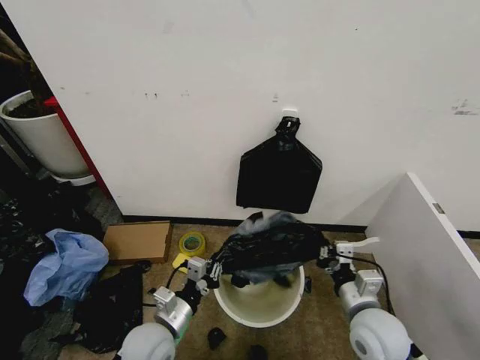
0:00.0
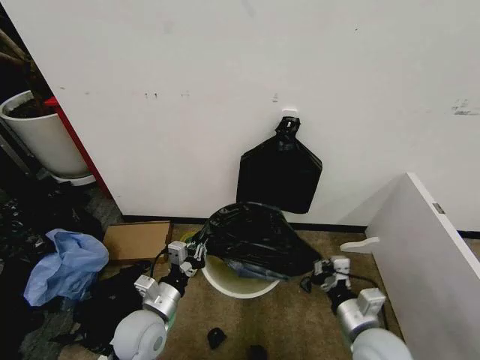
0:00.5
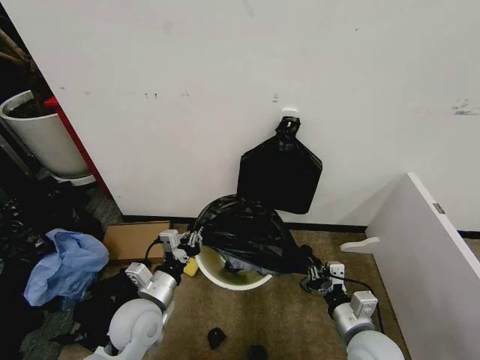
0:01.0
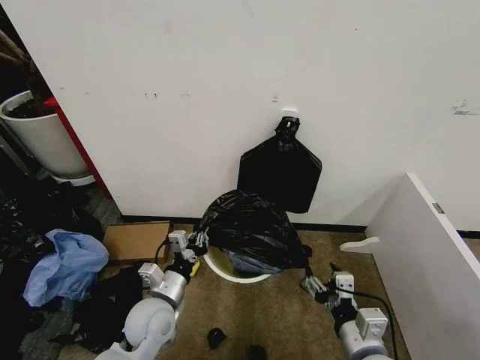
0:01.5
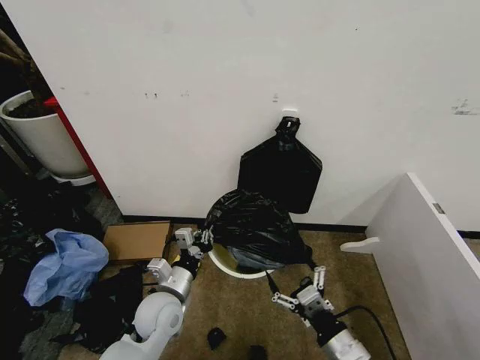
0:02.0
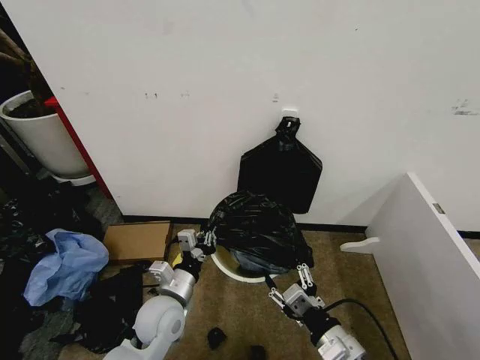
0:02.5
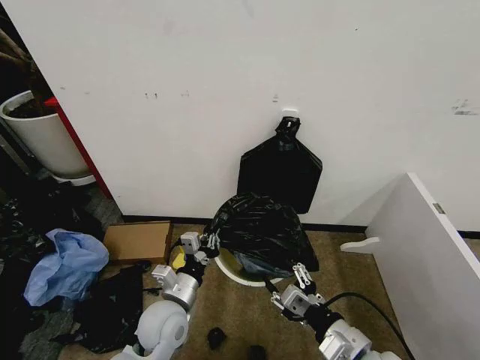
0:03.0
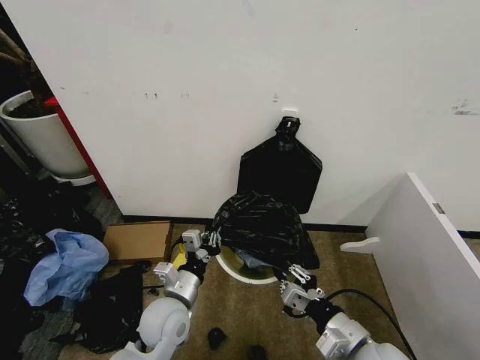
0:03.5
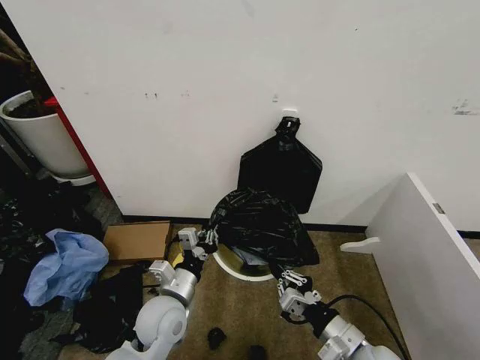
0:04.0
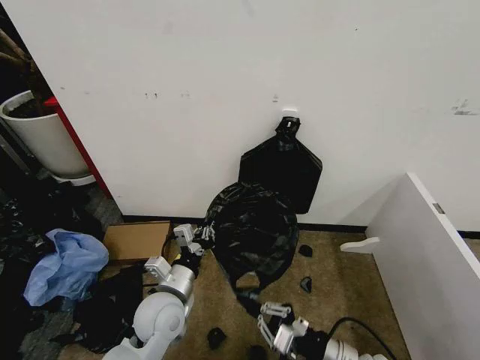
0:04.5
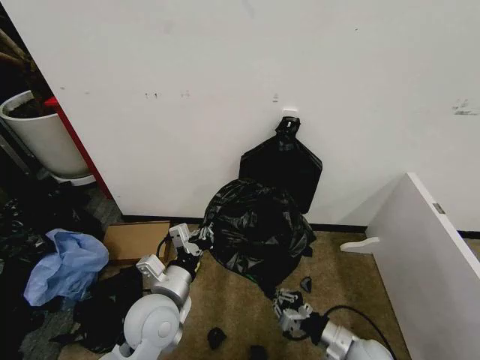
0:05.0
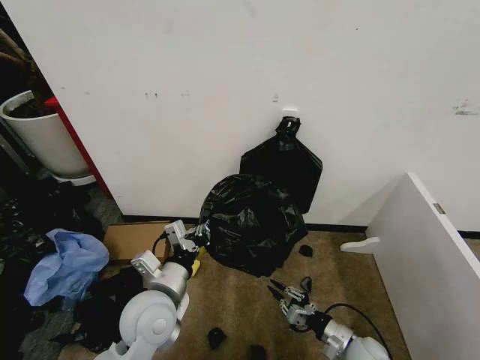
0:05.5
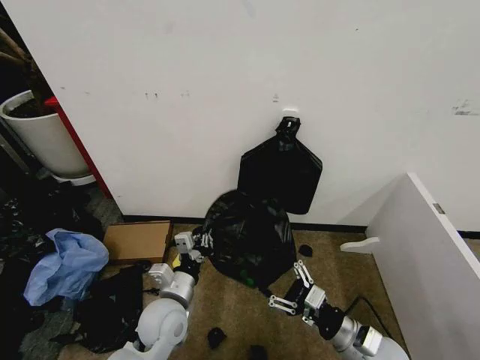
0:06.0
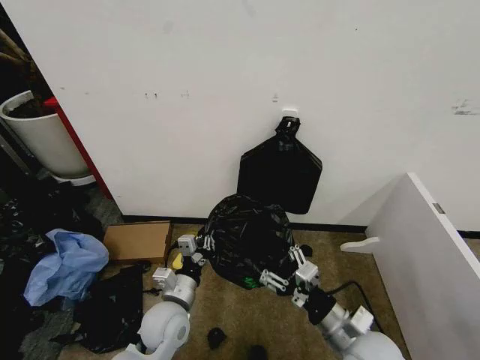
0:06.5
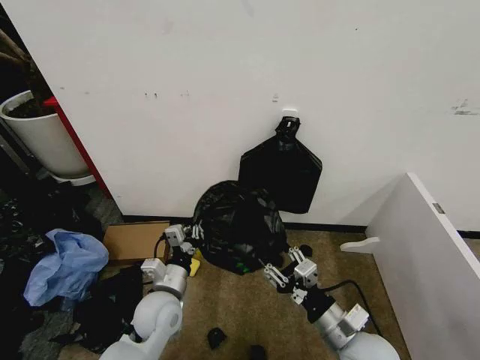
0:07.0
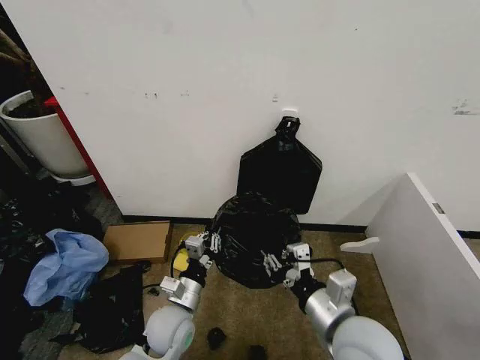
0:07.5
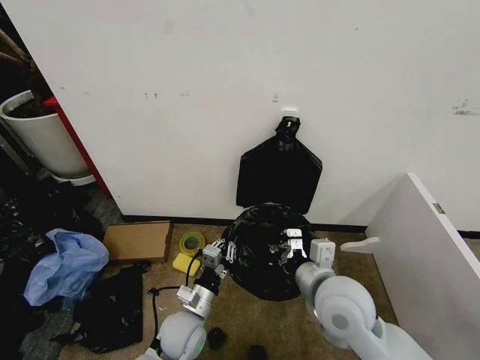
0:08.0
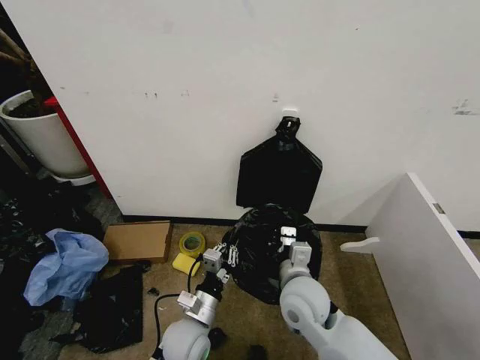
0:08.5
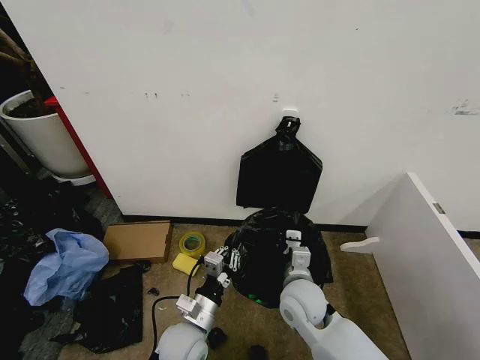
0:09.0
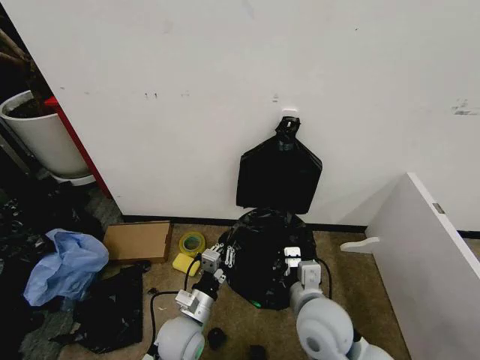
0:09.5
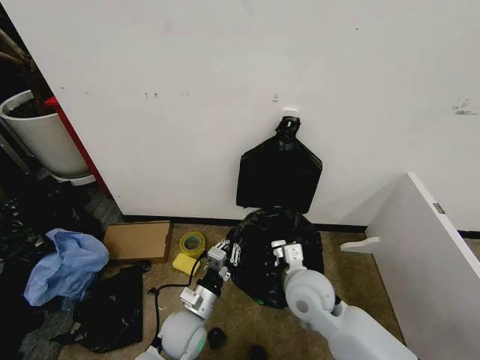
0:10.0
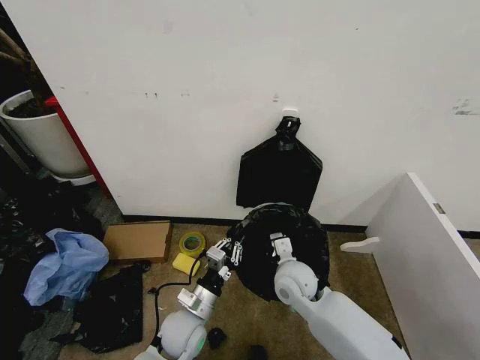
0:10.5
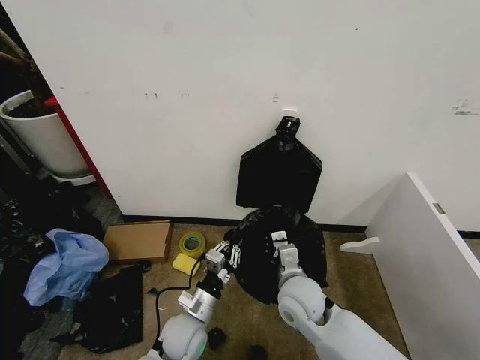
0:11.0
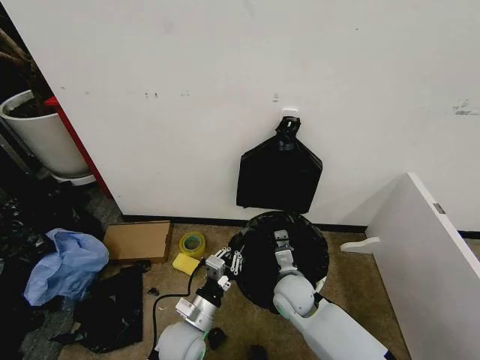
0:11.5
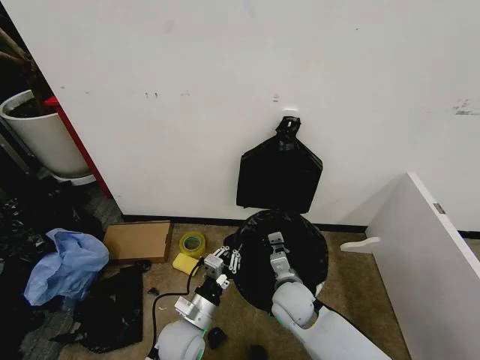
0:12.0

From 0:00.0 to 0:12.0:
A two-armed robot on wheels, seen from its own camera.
Task of the whole recording: Place the garbage bag over the trash bin.
From 0:00.0 to 0:02.0: The right gripper heads backward, covering roughly 10 cm, and opens its fingers, while the left gripper goes about 5 cm forward.
From 0:02.0 to 0:04.0: The right gripper closes its fingers.
From 0:04.0 to 0:06.0: The left gripper moves about 5 cm upward and comes back; the right gripper moves some 15 cm downward and comes back, and opens up.
From 0:06.0 to 0:08.0: The left gripper travels downward by approximately 5 cm, while the right gripper travels upward, to the left and forward by approximately 15 cm, and closes up.
From 0:08.0 to 0:10.0: The right gripper heads downward, covering roughly 5 cm.
From 0:10.0 to 0:12.0: The right gripper moves downward, approximately 10 cm.

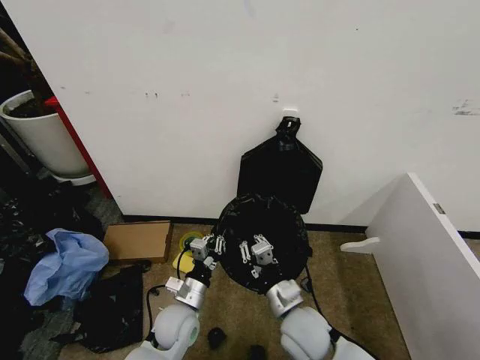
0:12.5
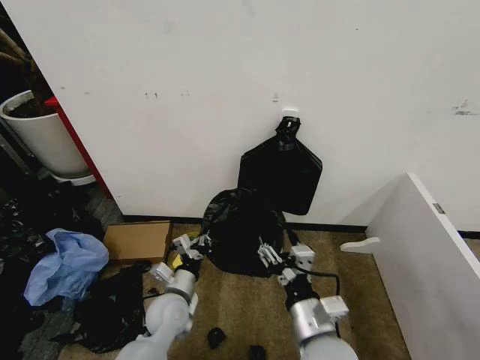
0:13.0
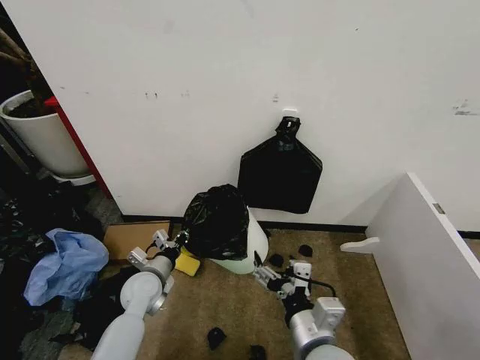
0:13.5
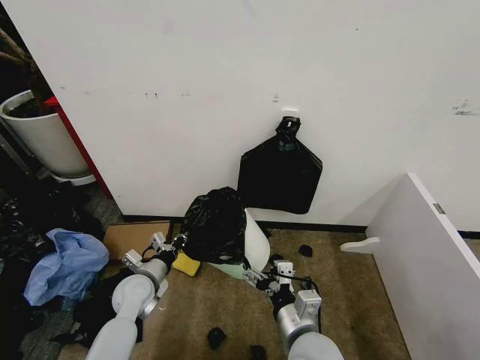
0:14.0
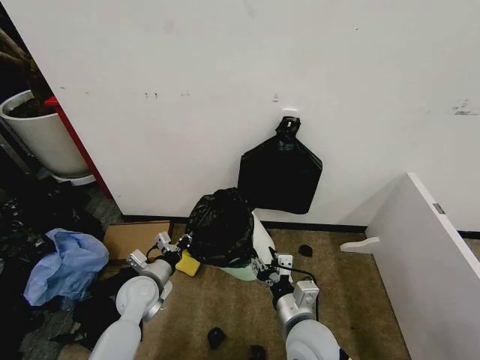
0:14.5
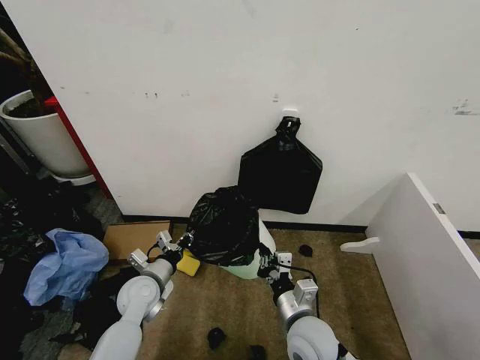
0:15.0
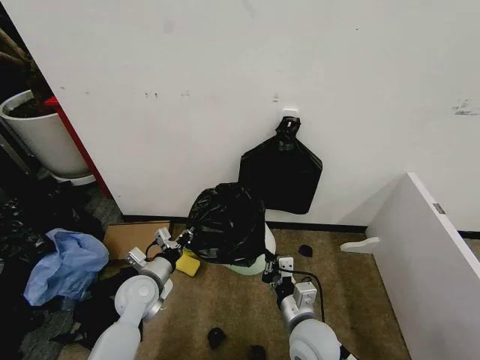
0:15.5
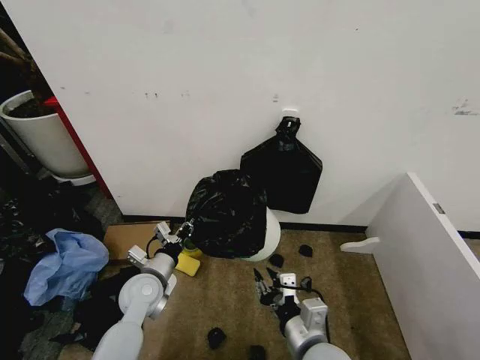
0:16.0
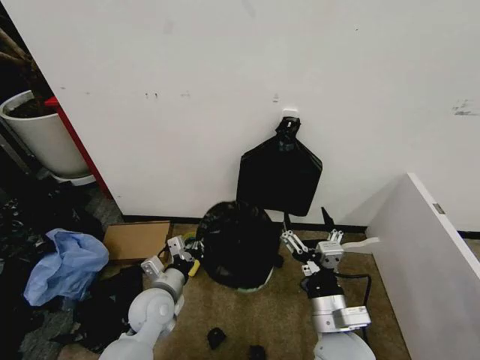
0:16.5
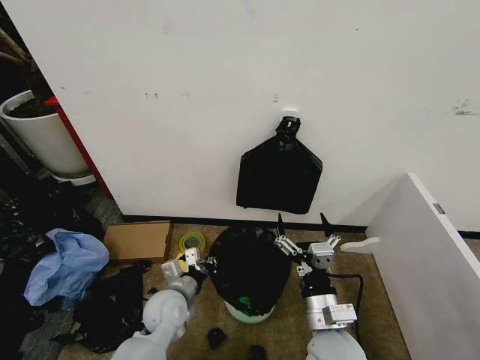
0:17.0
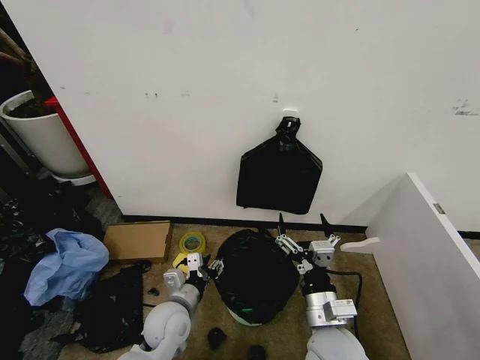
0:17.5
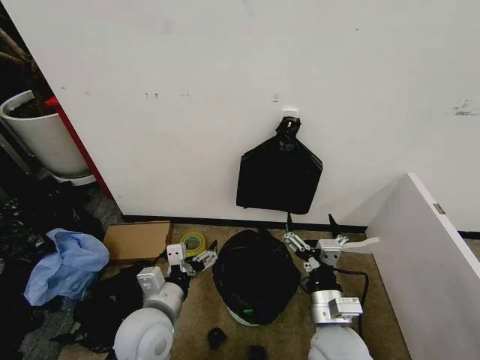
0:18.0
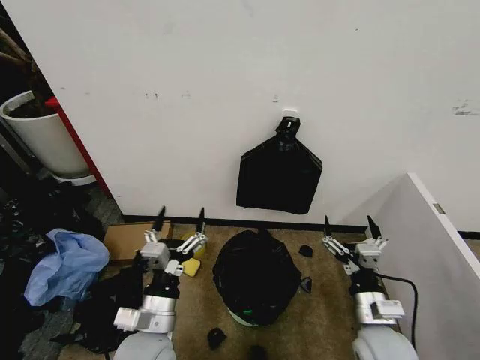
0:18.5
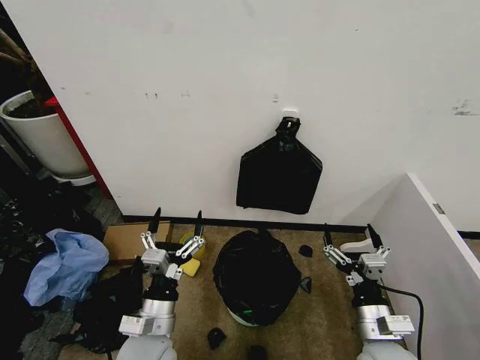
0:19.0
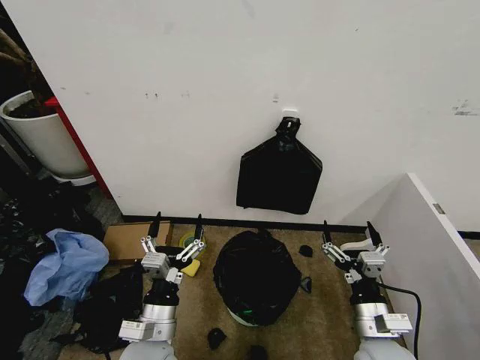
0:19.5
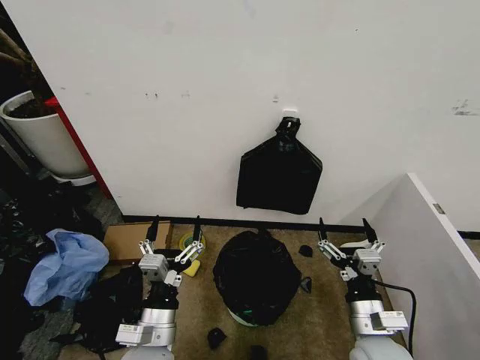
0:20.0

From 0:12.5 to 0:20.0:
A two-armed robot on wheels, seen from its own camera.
Task of the whole recording: Place the garbage bag over the trash bin.
From 0:12.5 to 0:14.5: The left gripper travels to the left and forward by approximately 10 cm. The right gripper opens up.
From 0:14.5 to 0:16.5: The right gripper changes place by approximately 5 cm, and closes and opens again; the left gripper ends up roughly 5 cm from where it was.
From 0:16.5 to 0:18.0: The left gripper goes some 10 cm upward and backward, and opens.
From 0:18.0 to 0:20.0: The right gripper heads to the right, covering some 10 cm; the left gripper changes place by about 5 cm.

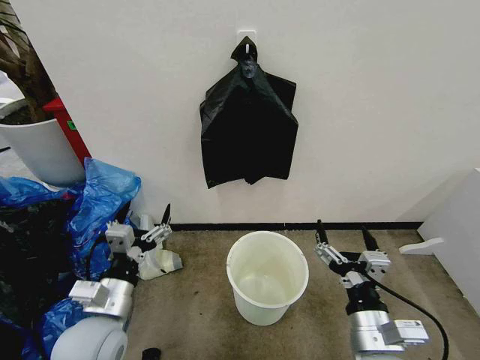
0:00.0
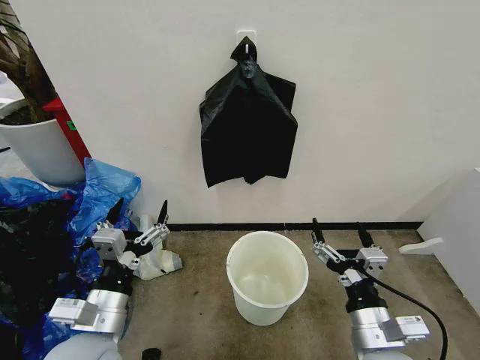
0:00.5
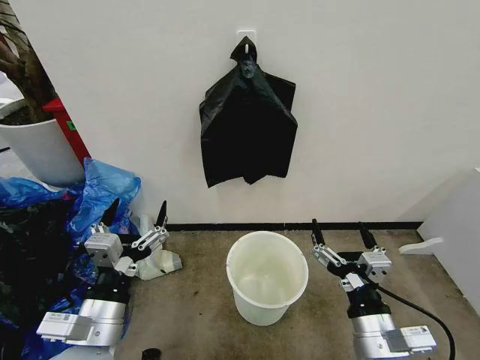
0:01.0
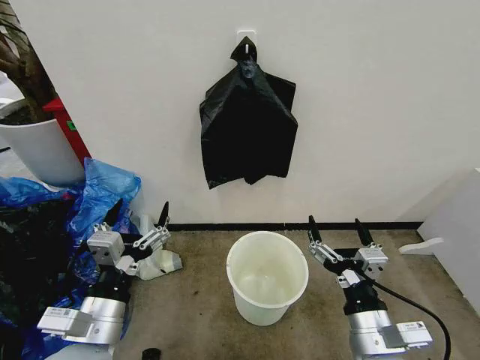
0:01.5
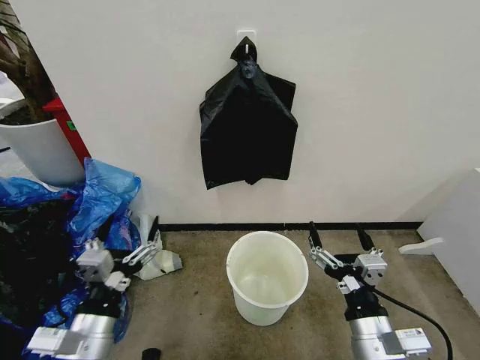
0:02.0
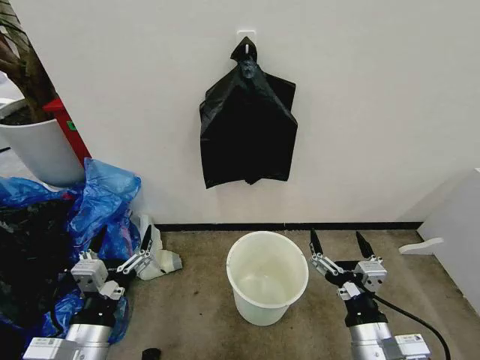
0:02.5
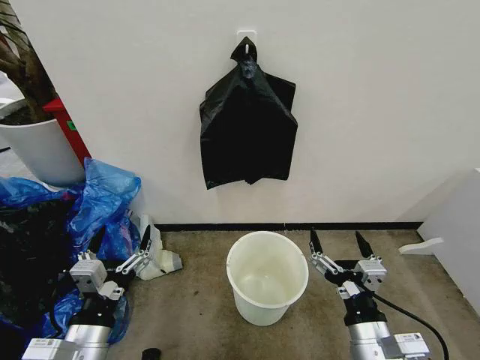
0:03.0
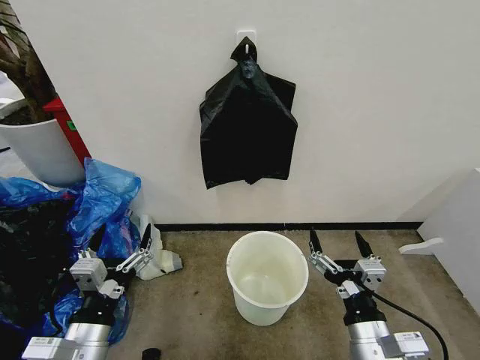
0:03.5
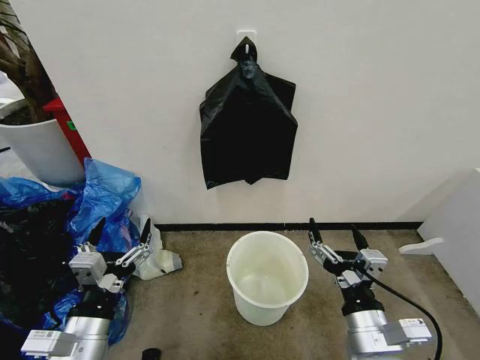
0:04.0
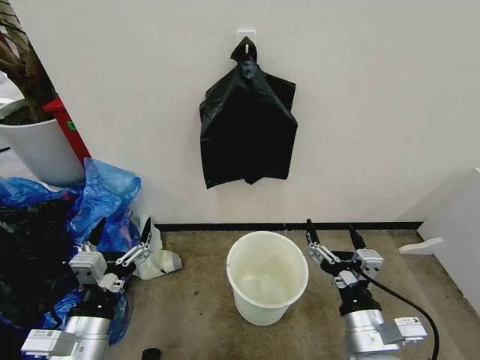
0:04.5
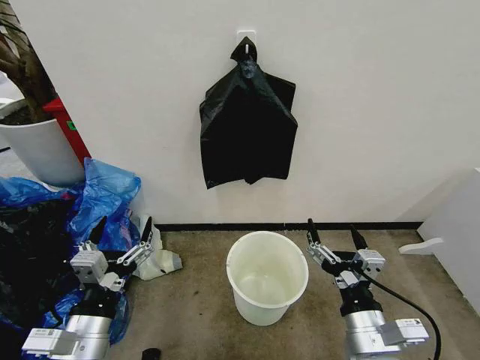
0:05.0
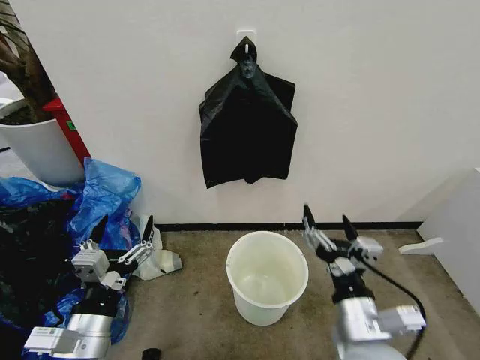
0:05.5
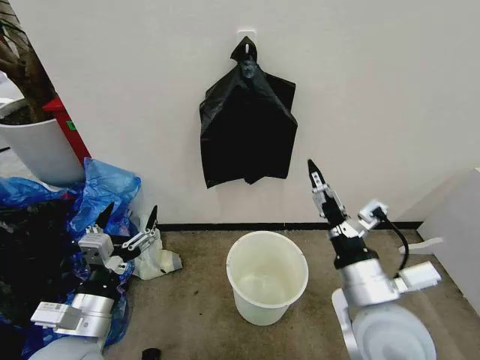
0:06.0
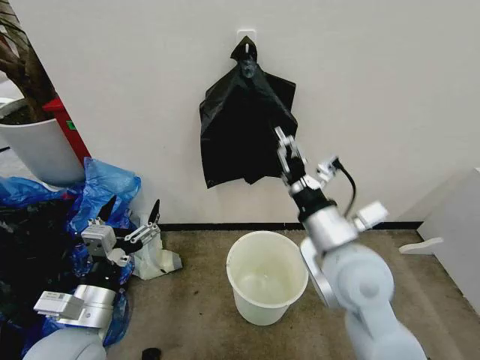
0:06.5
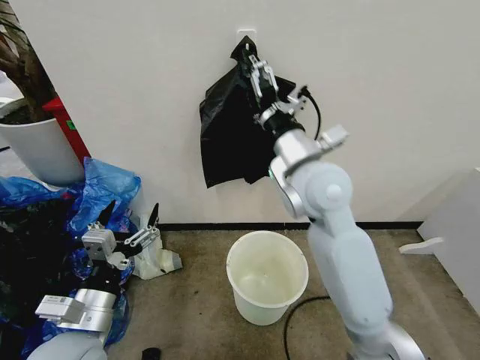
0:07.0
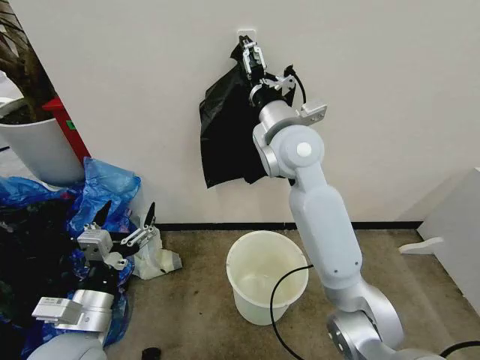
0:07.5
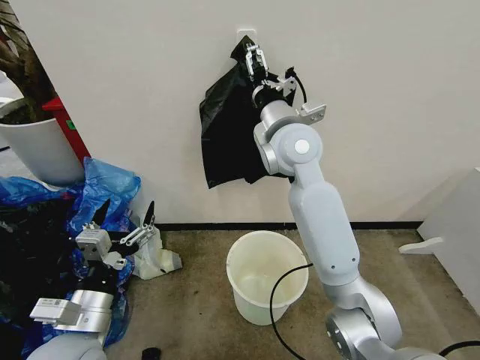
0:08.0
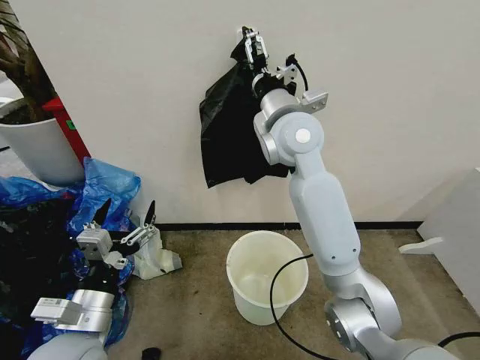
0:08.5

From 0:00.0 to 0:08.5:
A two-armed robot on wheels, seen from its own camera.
Task of the whole recording: Place the garbage bag over the trash bin.
From 0:02.0 to 0:04.0: The grippers stay close to where they were, moving slightly.
From 0:04.0 to 0:06.5: The right gripper is displaced forward and upward by roughly 15 cm.
From 0:06.5 to 0:08.5: The right gripper travels forward and upward by roughly 25 cm.
